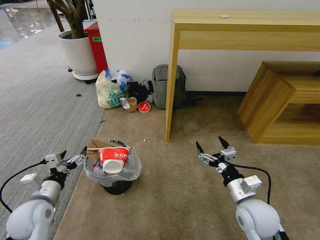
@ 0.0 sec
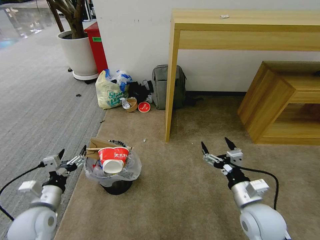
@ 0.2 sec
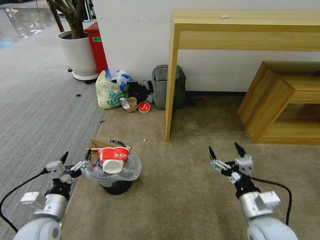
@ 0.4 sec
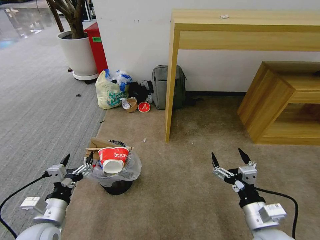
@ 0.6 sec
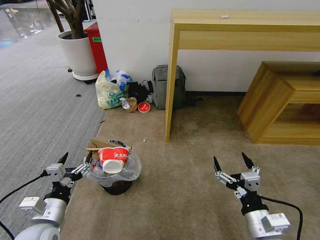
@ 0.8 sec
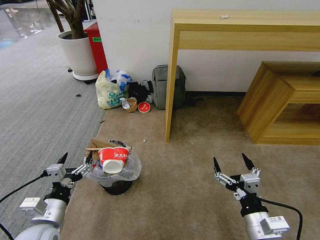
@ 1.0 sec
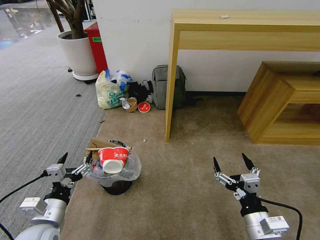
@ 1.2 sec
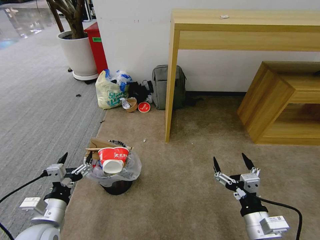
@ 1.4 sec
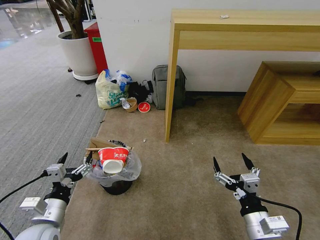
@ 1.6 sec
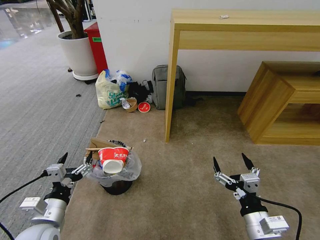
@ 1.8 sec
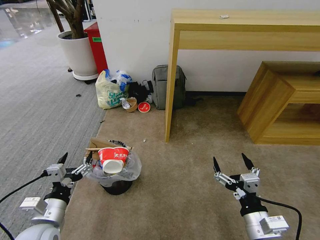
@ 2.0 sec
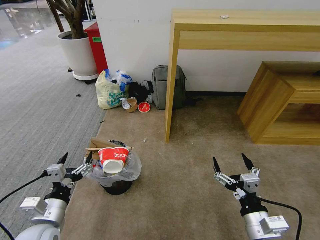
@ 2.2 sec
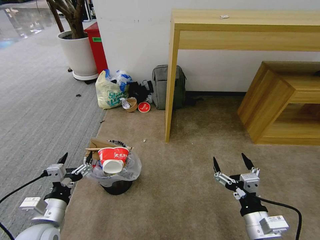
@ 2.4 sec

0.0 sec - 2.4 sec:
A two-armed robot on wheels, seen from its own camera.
Task of the whole recording: Pick up the trash bin and place the garbage on the floor into it.
0.0 sec - 1.2 sec: The left gripper moves backward and to the right, about 10 cm. The right gripper shifts approximately 10 cm backward.
1.2 sec - 2.4 sec: Neither gripper changes place.
